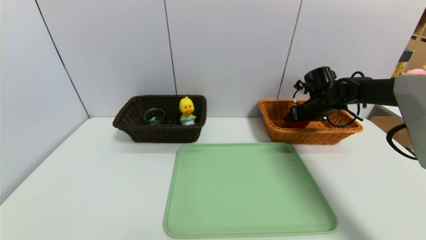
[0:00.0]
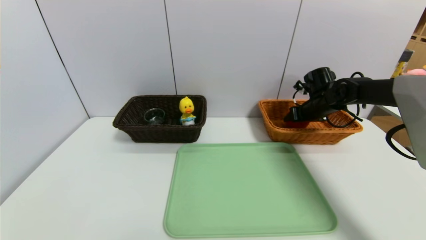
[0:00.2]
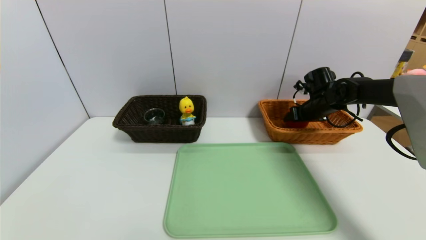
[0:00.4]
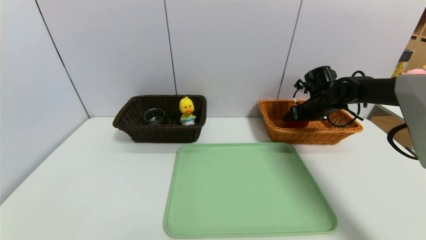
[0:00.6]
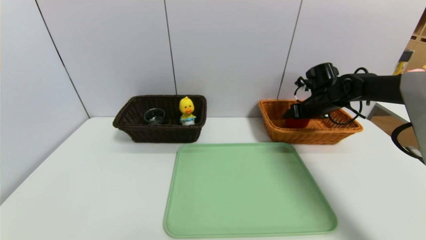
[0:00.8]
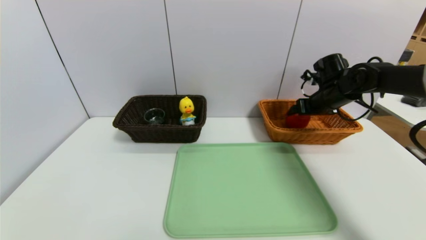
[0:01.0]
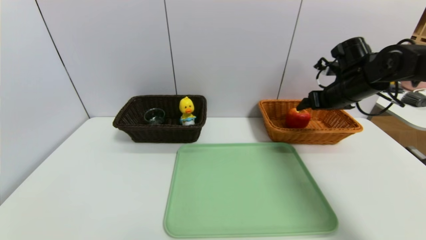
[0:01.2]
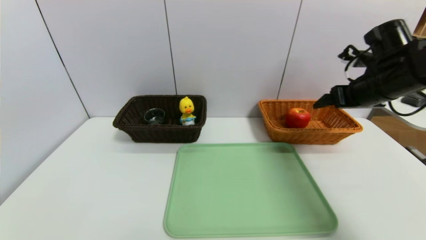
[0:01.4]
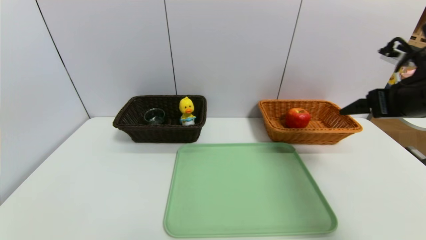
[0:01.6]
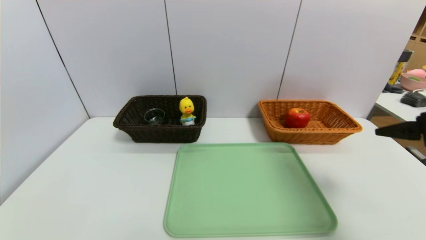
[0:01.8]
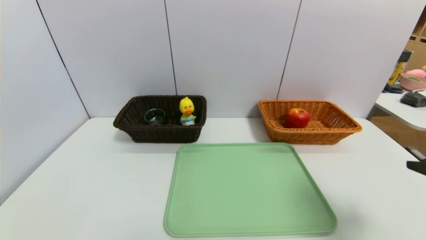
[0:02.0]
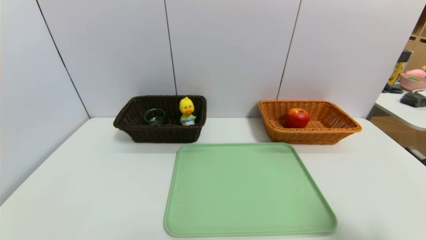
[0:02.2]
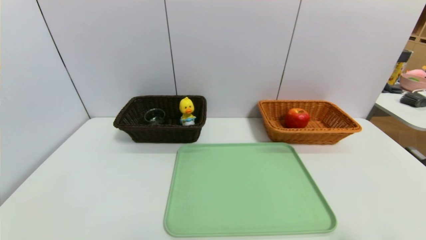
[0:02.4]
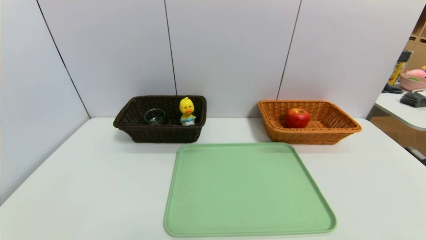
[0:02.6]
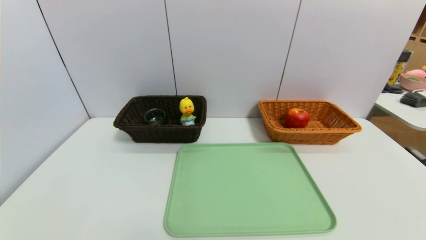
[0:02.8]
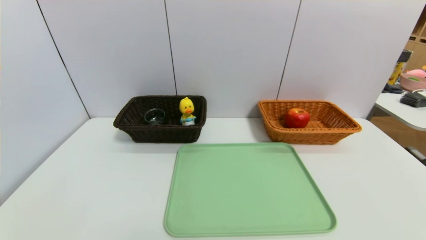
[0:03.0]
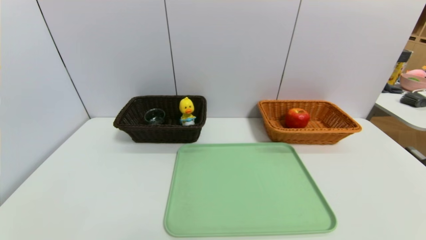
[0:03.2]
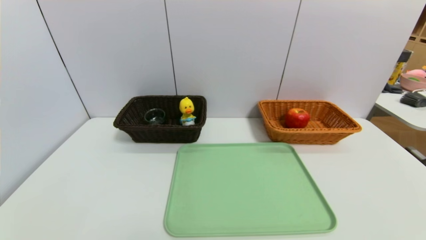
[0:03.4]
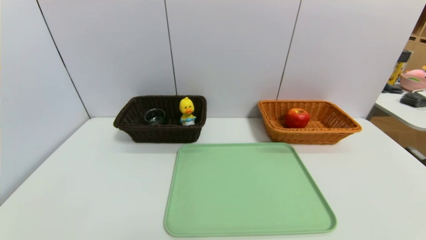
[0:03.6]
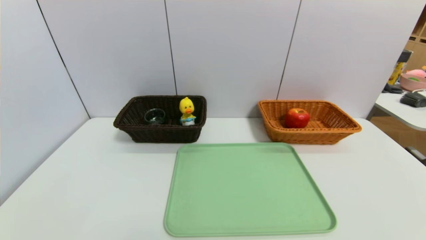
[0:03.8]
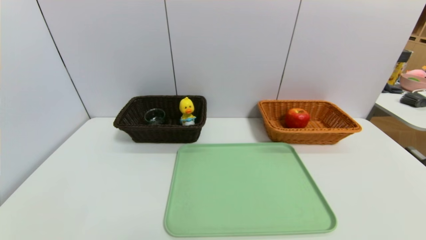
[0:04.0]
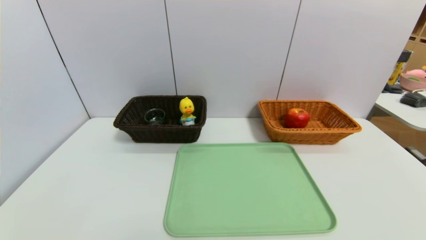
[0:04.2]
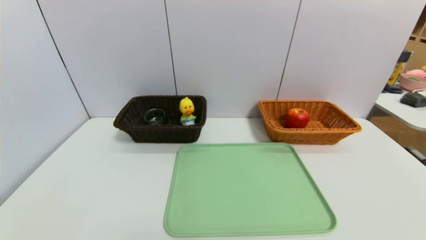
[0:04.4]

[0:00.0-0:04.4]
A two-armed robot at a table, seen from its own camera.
Task of the whole recording: place the food in the right basket with the right gripper, and place the non food items in the left basket with the left gripper.
0:00.0 to 0:01.4: The right gripper heads backward and upward, covering about 20 cm, and opens its fingers.
0:01.4 to 0:03.0: The right gripper travels backward and downward by approximately 40 cm.
